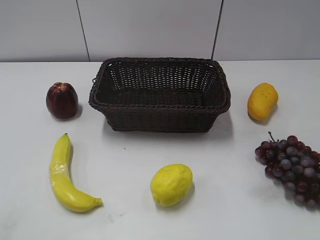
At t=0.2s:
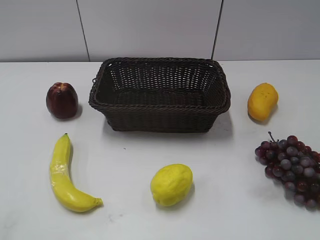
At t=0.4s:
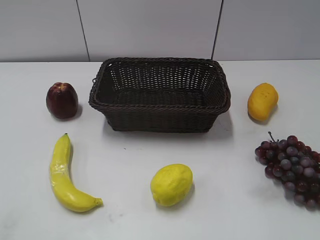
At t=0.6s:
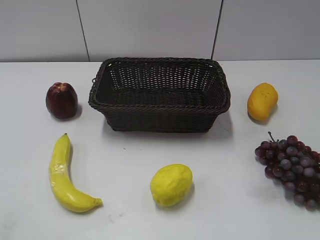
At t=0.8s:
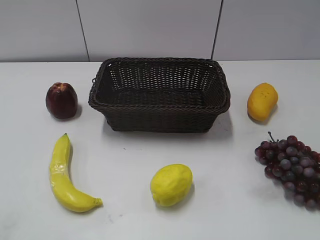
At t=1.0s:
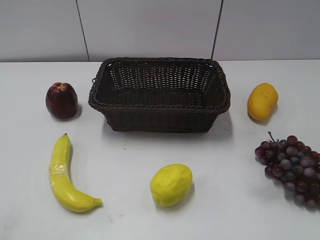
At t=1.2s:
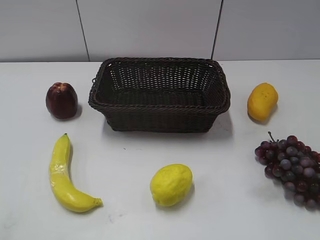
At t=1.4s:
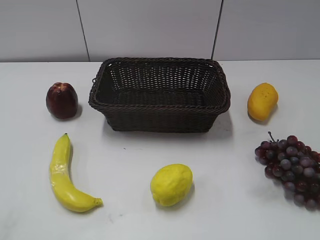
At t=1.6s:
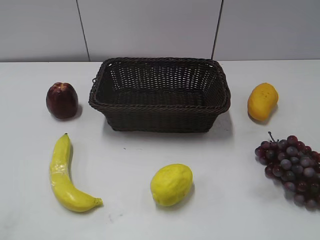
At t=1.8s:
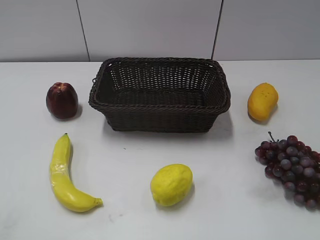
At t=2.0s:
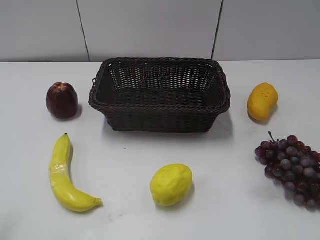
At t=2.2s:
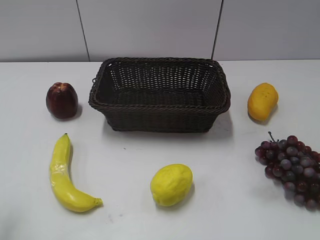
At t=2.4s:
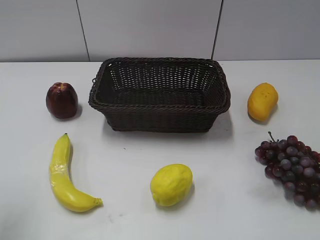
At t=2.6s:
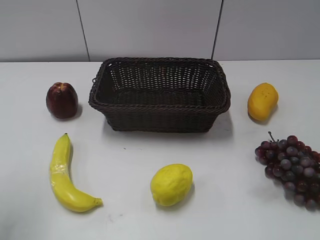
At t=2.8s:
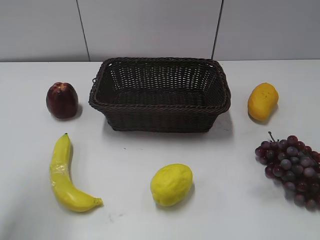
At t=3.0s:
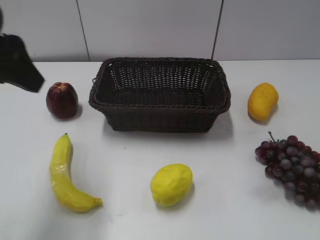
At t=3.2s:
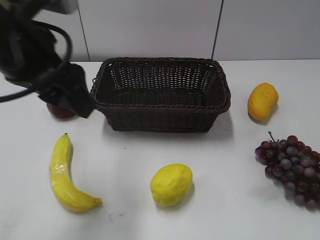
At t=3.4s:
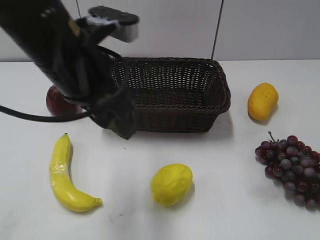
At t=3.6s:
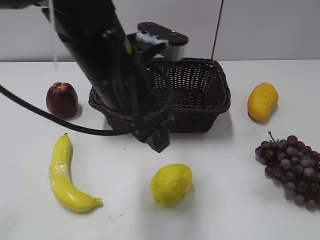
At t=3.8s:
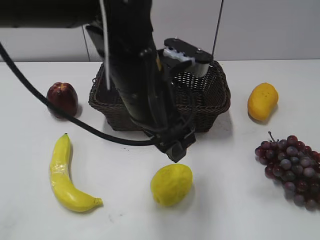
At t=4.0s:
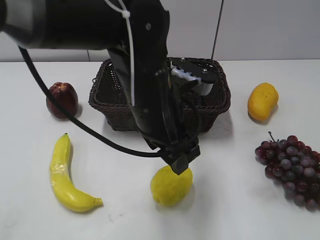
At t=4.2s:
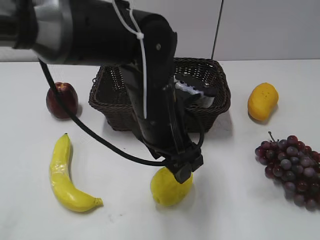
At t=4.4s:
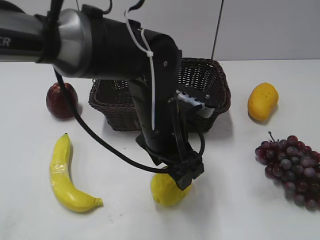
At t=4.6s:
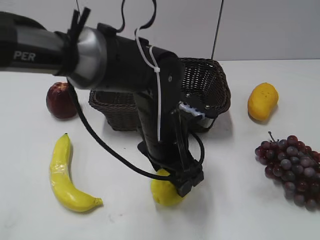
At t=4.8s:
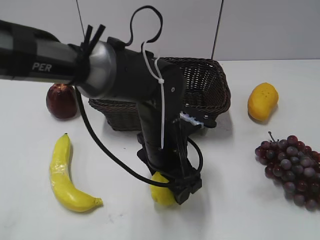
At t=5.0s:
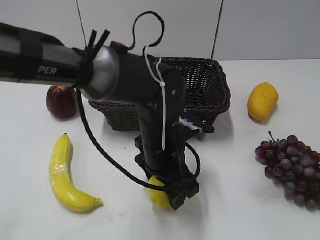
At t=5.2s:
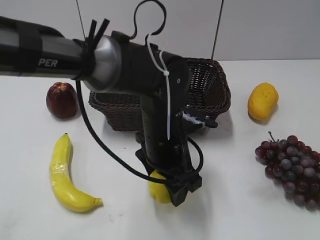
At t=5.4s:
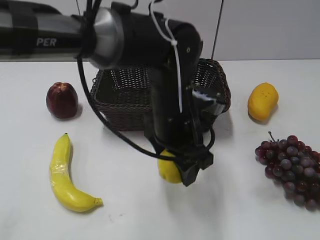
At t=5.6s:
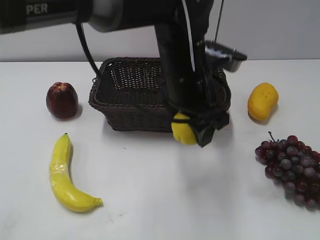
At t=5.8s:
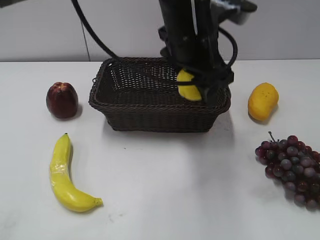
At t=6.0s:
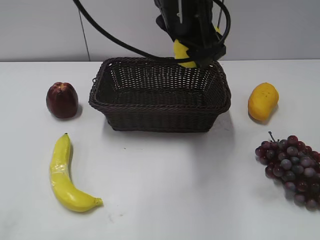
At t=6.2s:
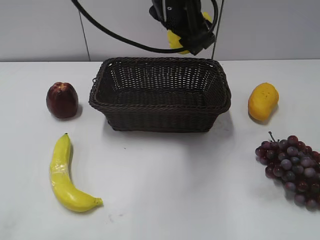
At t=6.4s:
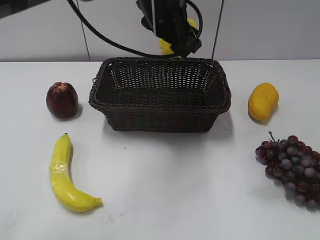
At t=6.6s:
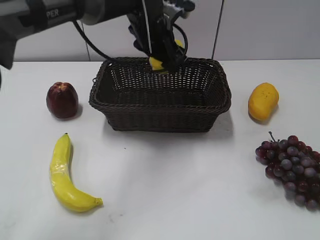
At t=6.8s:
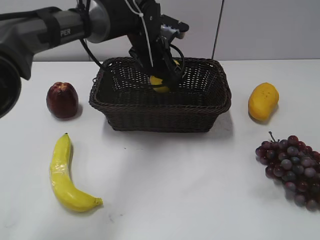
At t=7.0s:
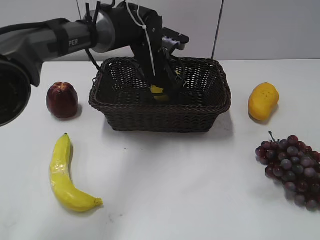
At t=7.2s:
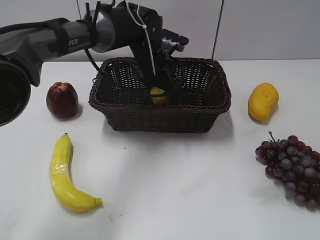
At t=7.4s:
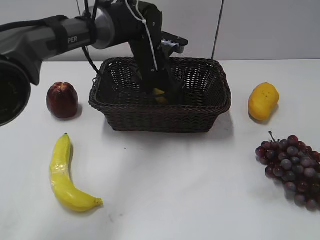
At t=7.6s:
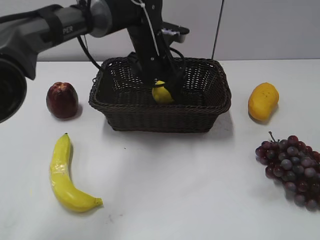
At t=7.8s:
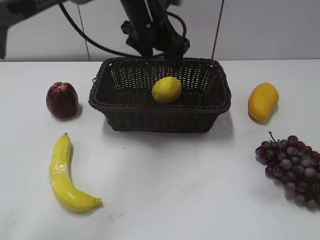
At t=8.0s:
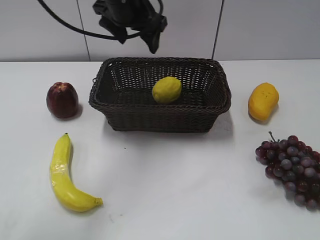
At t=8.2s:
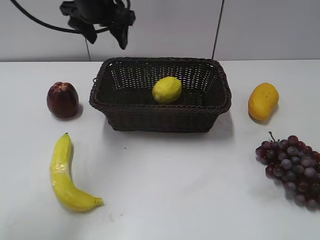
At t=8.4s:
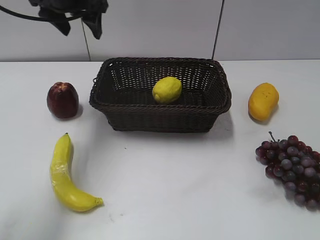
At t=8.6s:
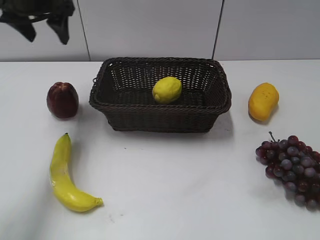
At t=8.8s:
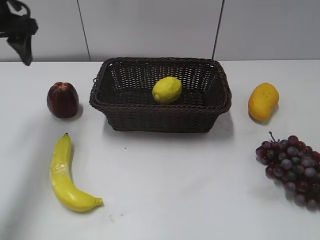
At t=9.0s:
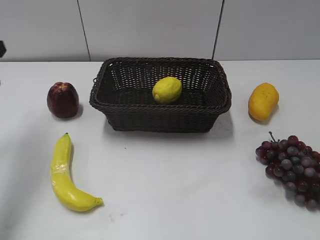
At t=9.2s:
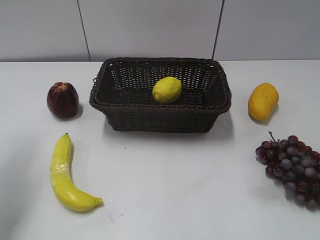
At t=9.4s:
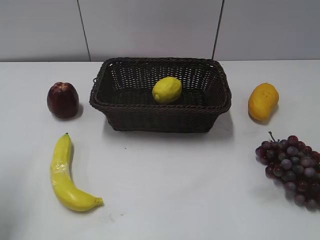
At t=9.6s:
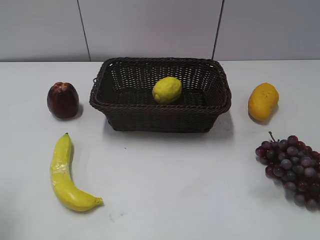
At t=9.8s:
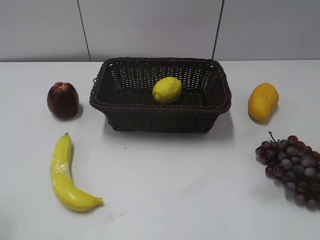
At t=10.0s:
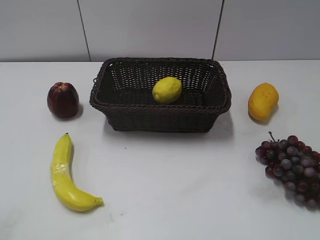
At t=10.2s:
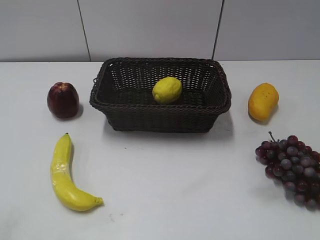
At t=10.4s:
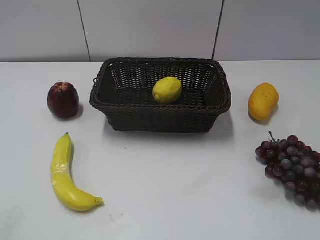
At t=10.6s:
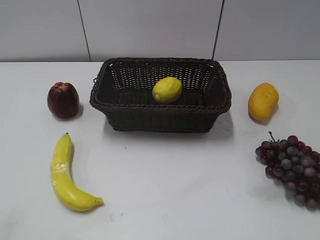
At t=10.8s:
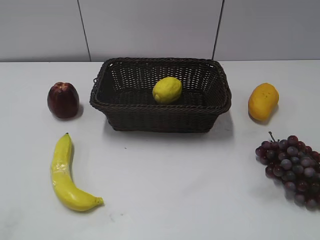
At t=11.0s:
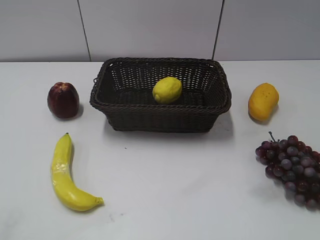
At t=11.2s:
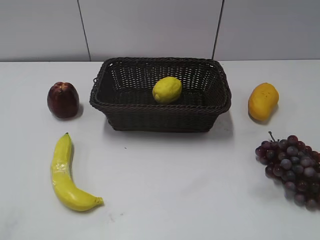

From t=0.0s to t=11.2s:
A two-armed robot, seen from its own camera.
Step, from t=3.0s to t=5.2s: Grasp the lemon with left gripper.
Step, from t=5.6s to t=7.4s: Place the lemon in the basket with left gripper.
From t=1.6s to t=3.2s: The left gripper is displaced forward and to the right by about 30 cm.
From t=3.2s to t=4.8s: The left gripper shifts roughly 25 cm downward and to the right.
From t=4.8s to t=6.4s: The left gripper heads forward and upward, covering about 20 cm, and closes up.
From t=6.4s to t=8.0s: The left gripper shifts about 5 cm to the left, goes downward and returns, roughly 10 cm each way, and opens its fingers.
From t=8.0s to t=9.6s: The left gripper is displaced to the left and backward by some 35 cm, and closes its fingers.

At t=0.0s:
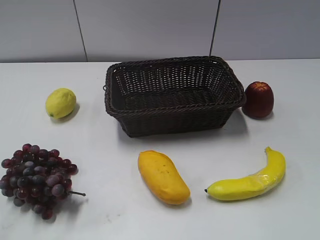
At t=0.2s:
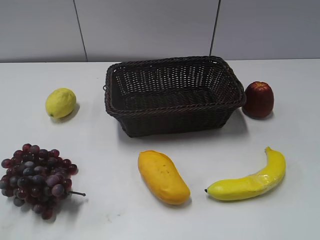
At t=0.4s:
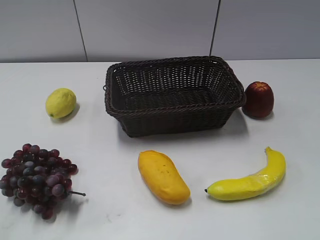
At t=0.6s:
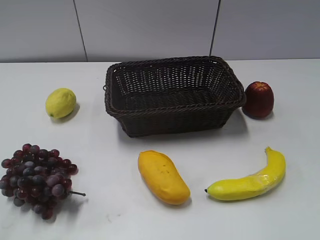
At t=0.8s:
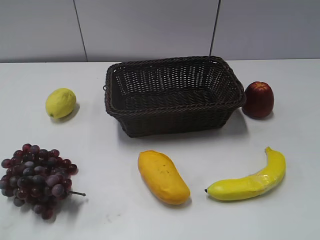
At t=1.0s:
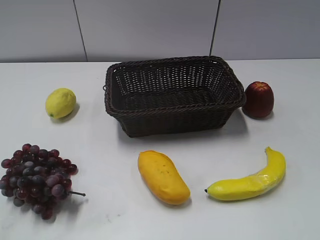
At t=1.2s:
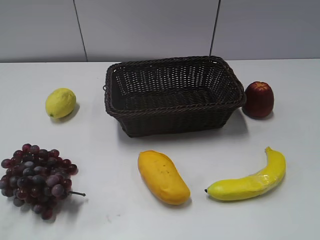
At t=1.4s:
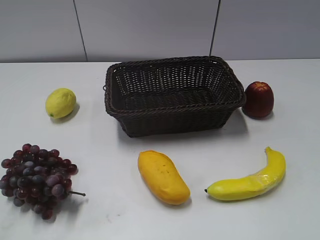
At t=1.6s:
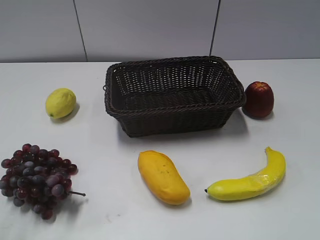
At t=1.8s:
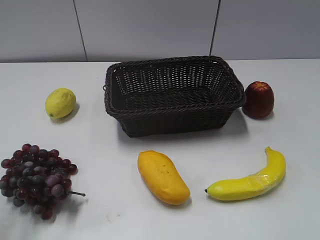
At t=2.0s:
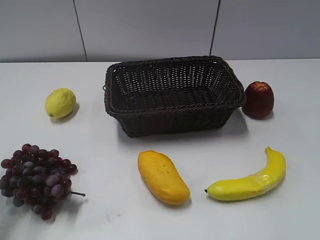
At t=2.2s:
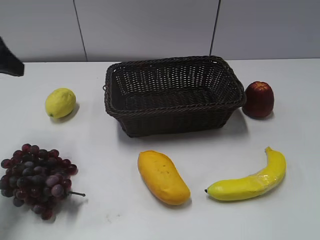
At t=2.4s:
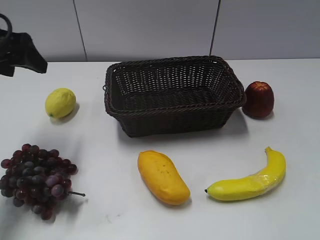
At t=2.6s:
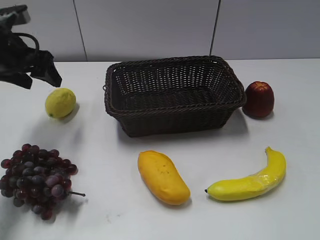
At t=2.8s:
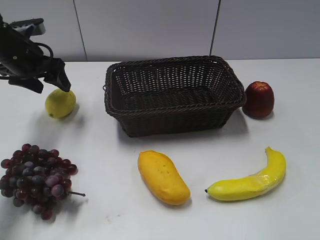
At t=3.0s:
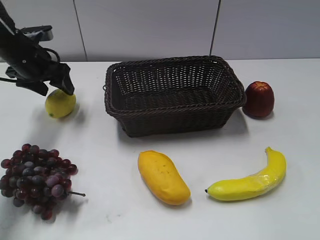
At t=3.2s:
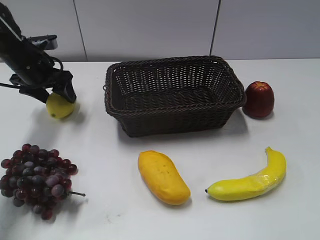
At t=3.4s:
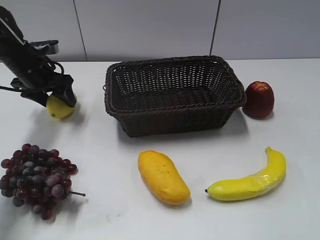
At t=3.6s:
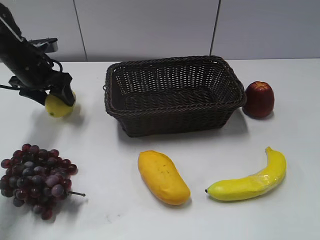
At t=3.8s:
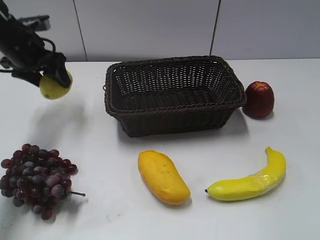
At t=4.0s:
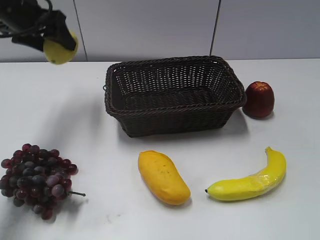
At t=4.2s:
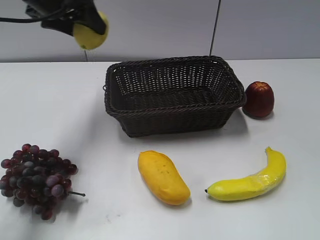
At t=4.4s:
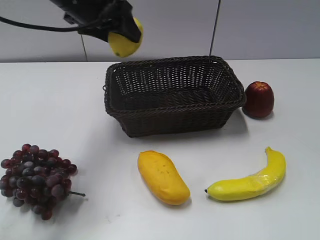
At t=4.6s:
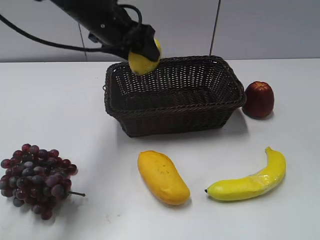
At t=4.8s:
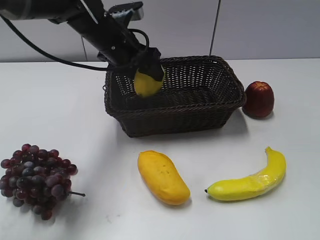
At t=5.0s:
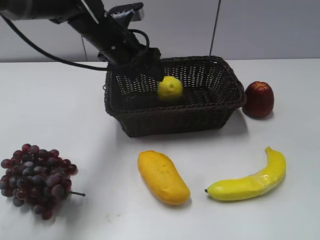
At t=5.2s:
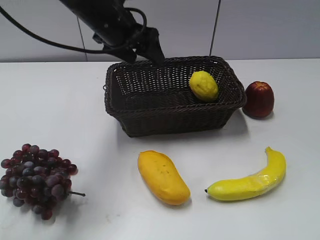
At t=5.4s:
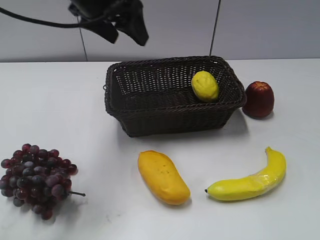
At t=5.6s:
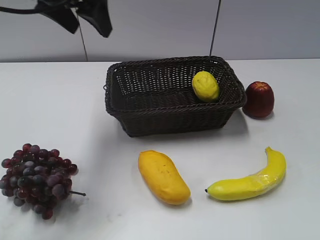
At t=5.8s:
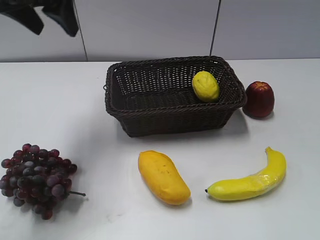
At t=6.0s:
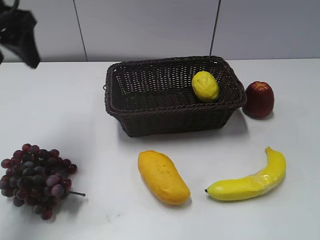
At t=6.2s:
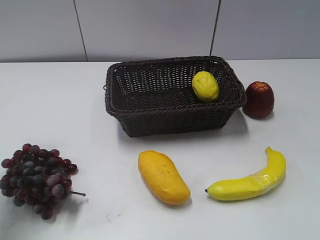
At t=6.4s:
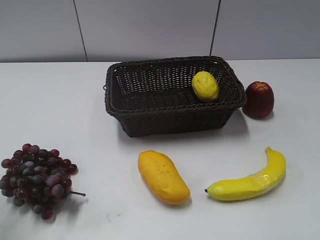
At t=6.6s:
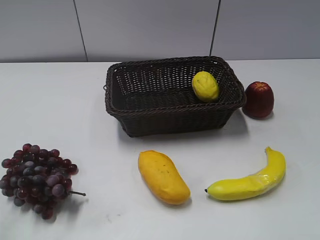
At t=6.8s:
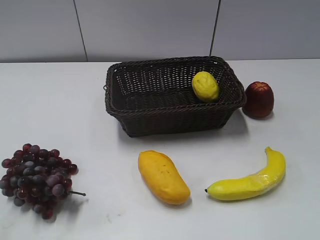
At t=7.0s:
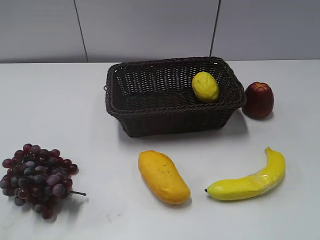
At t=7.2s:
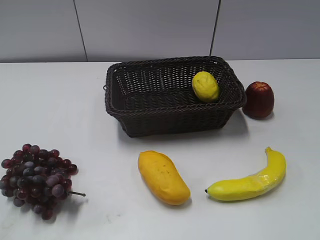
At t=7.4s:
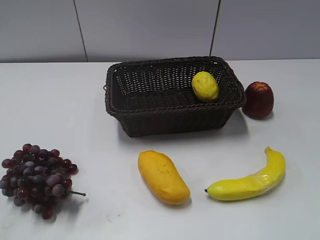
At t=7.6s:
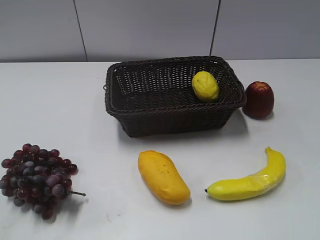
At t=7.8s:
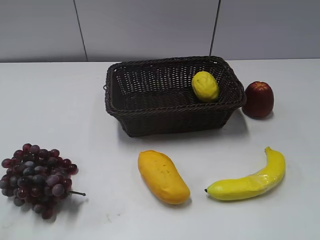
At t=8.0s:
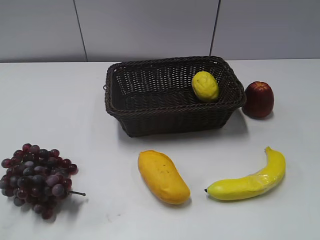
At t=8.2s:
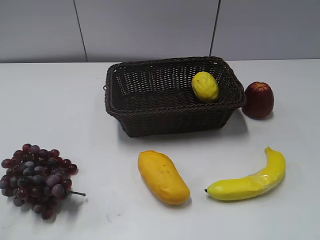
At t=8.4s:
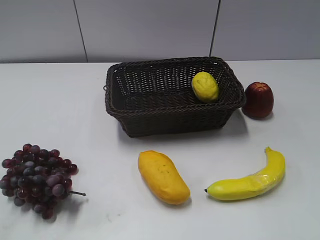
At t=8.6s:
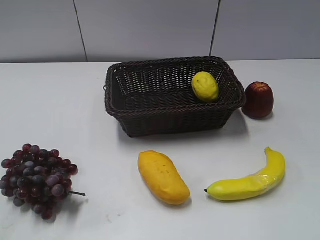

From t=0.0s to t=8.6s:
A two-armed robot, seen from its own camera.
Step, from t=2.2s to t=3.6s: Grasp the lemon with left gripper.
Step, from t=3.8s to t=5.0s: Place the lemon in the basket with left gripper.
From t=1.4s to t=2.8s: The left gripper goes some 40 cm forward.
From t=2.8s to t=4.4s: The left gripper is displaced to the right and upward by some 15 cm, and closes.
From t=4.4s to t=5.8s: The left gripper travels to the left and upward by about 10 cm.
From t=5.8s to t=7.2s: The left gripper goes some 35 cm backward.
From t=7.2s to t=8.6s: Both grippers stay about where they are.
